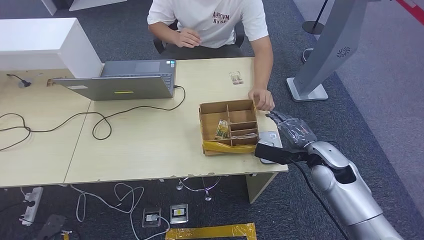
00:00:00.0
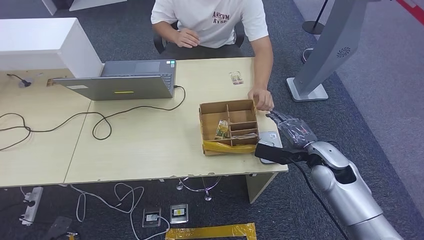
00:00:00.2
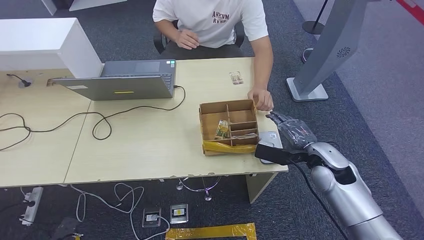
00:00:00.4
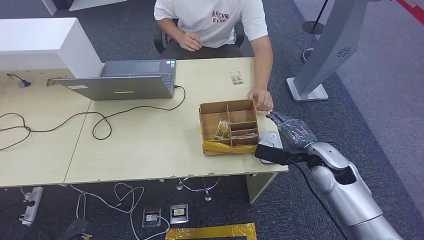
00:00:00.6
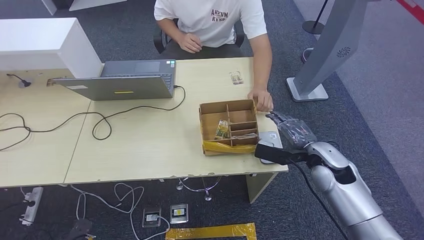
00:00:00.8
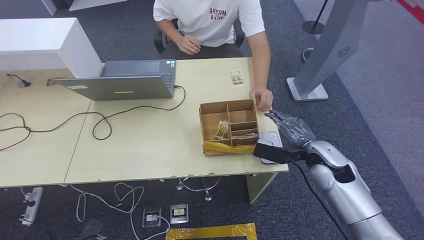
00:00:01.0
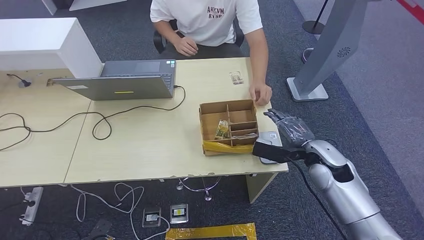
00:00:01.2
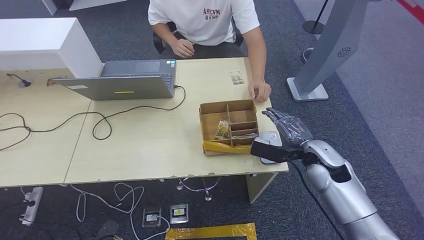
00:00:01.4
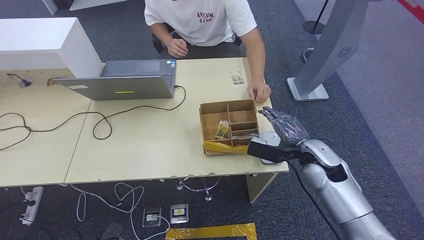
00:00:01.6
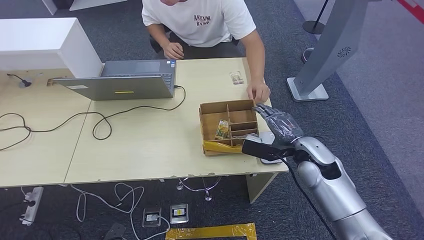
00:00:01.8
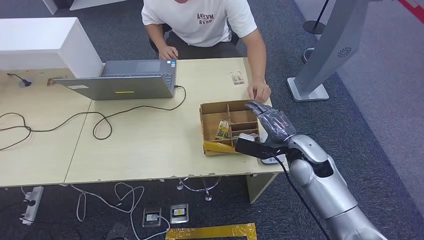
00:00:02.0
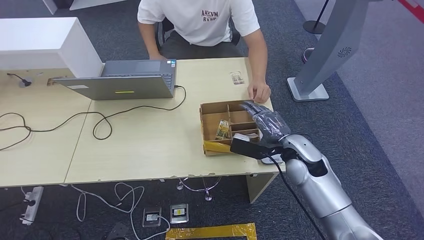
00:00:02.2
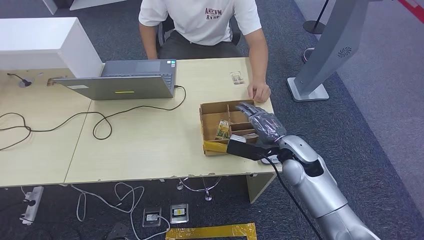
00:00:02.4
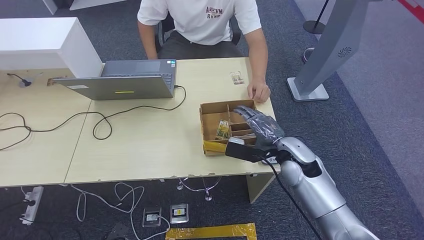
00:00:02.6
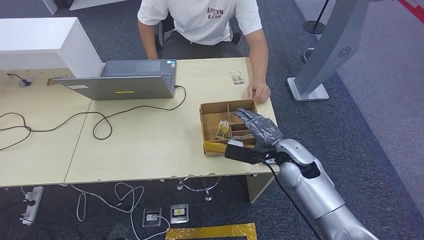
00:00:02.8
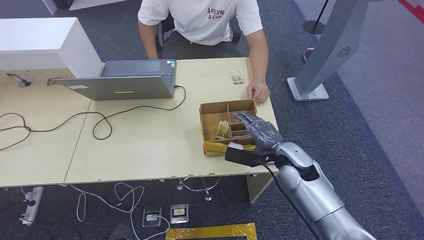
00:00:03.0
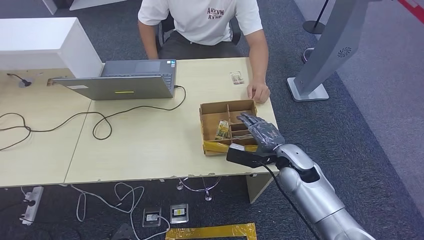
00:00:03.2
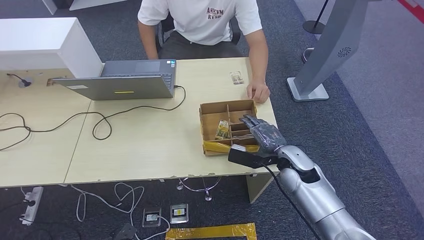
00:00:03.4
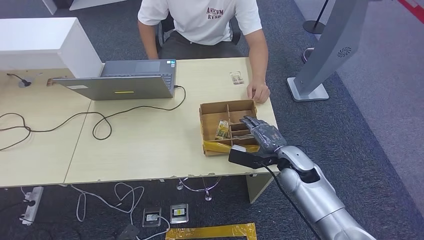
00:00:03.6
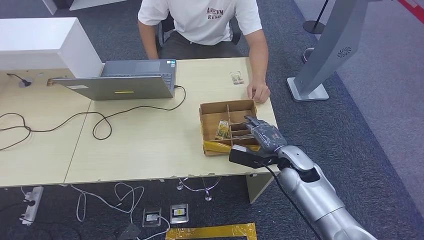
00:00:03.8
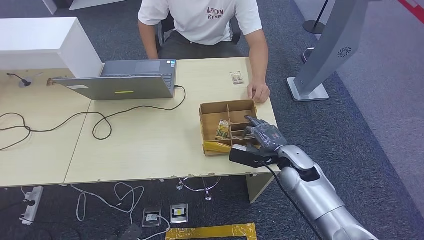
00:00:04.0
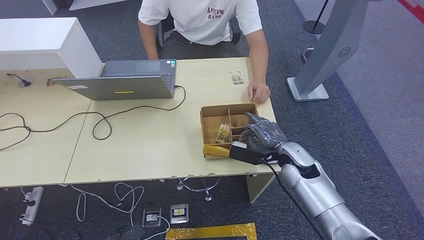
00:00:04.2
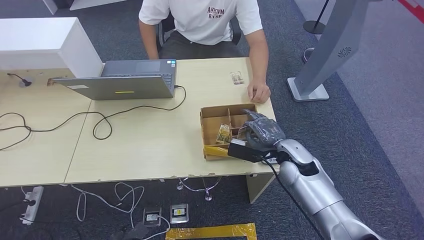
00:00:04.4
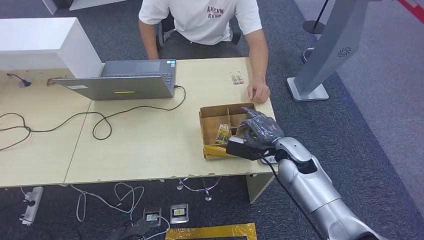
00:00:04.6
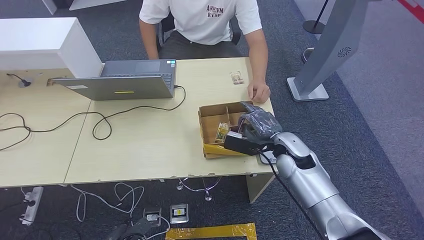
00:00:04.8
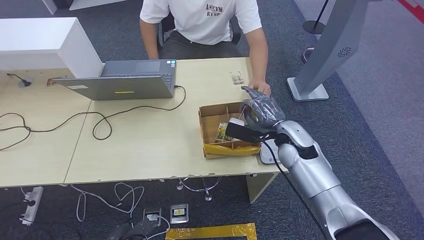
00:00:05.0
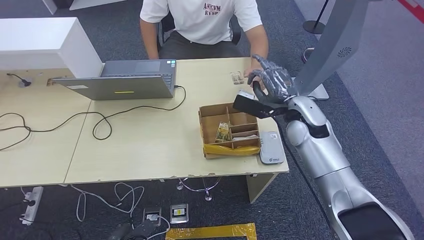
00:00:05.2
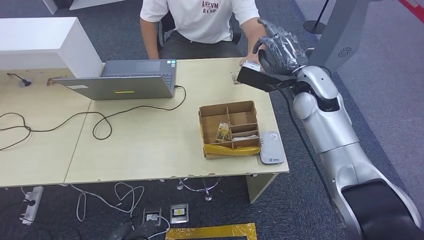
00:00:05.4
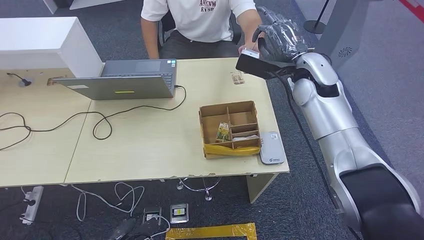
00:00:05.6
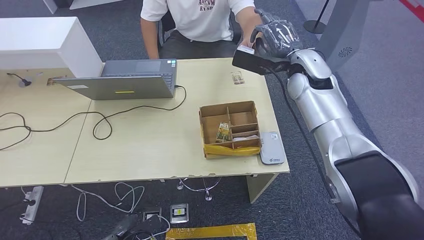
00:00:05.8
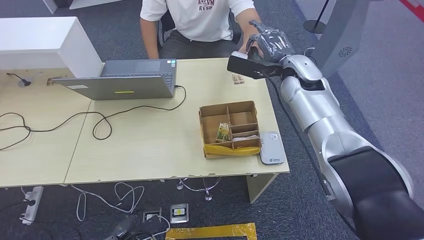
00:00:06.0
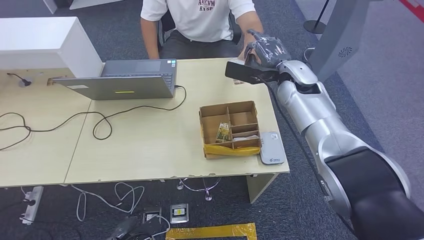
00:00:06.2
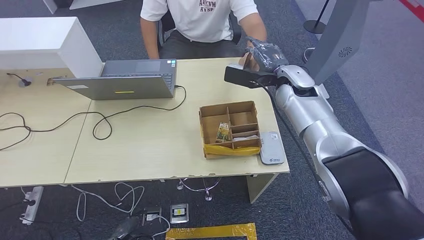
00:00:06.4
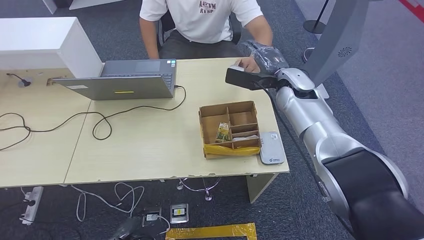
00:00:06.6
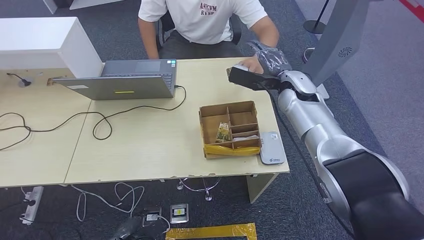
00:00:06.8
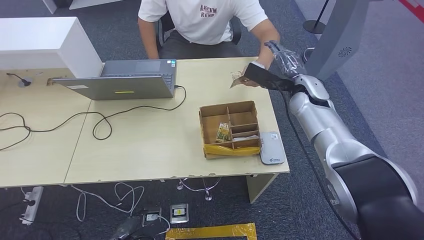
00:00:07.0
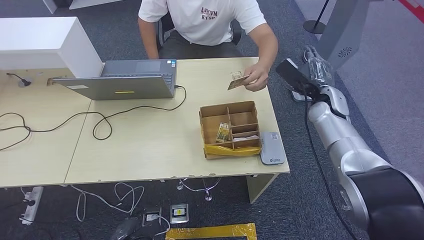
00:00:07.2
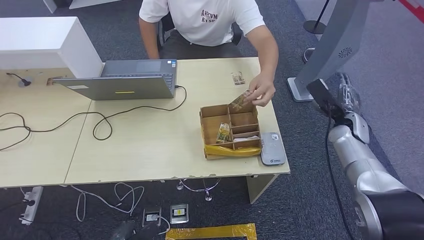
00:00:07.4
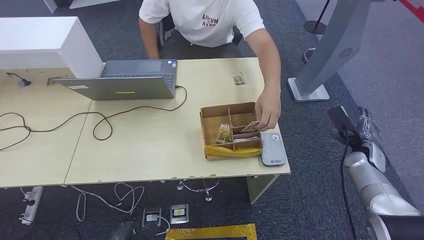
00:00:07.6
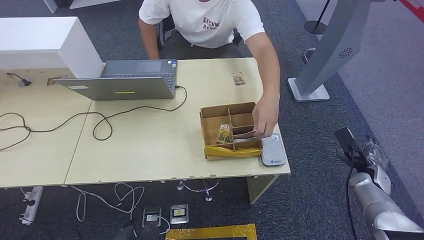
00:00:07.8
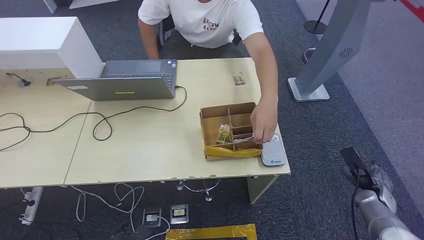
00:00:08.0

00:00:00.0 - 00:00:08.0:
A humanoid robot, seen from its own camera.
Step, 00:00:03.6 - 00:00:05.0: Pick up the room key from the key card box.
Step, 00:00:05.2 - 00:00:08.0: Hand the room key to the person.
00:00:00.0 - 00:00:01.6: The left hand is displaced to the right by some 15 cm.
00:00:01.6 - 00:00:03.2: The right hand is displaced to the left by approximately 5 cm.
00:00:03.2 - 00:00:04.8: The left hand changes place by roughly 5 cm.
00:00:04.8 - 00:00:06.4: The right hand heads upward and forward, covering approximately 20 cm.
00:00:06.4 - 00:00:08.0: The right hand moves to the right, downward and backward, about 40 cm, while the left hand heads backward, covering about 5 cm.
